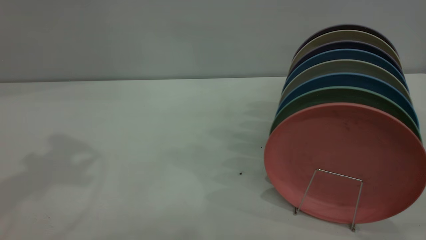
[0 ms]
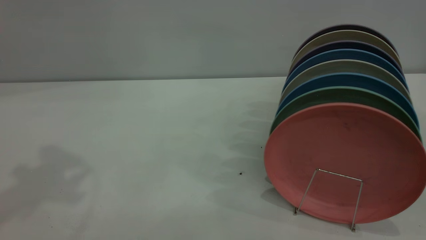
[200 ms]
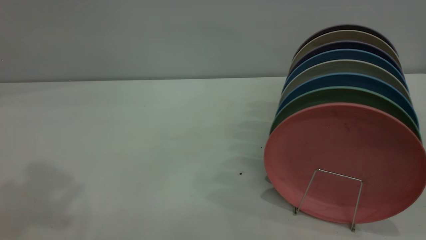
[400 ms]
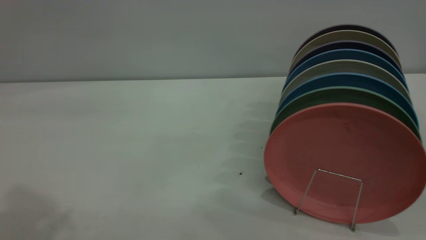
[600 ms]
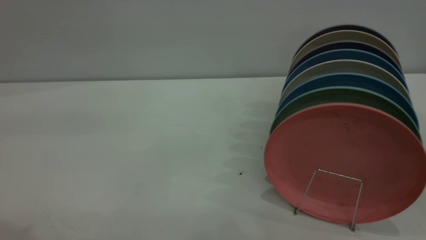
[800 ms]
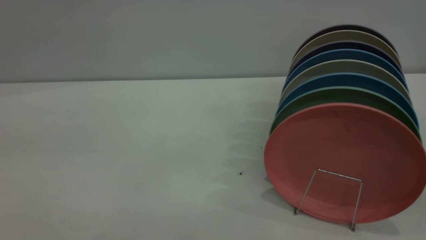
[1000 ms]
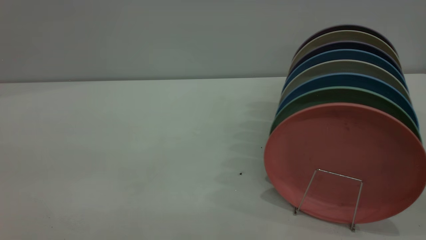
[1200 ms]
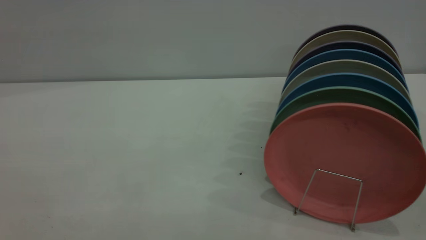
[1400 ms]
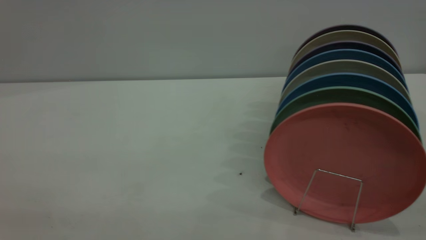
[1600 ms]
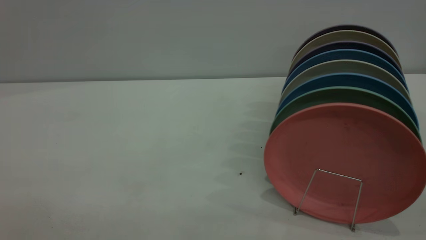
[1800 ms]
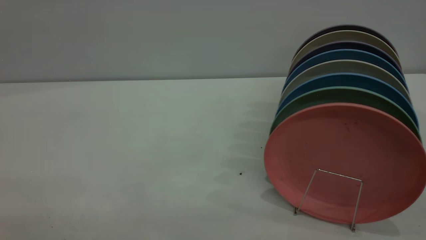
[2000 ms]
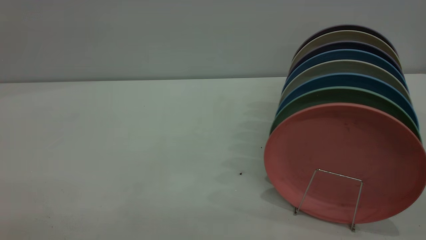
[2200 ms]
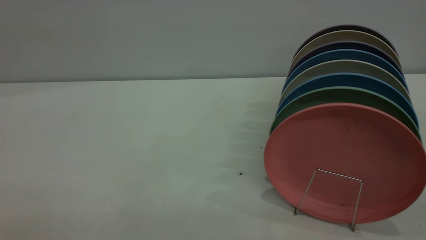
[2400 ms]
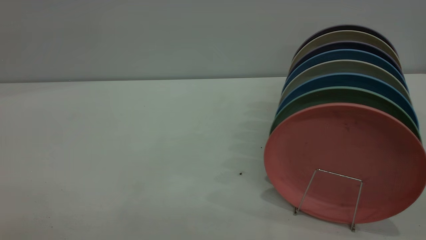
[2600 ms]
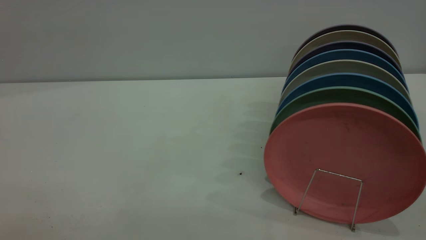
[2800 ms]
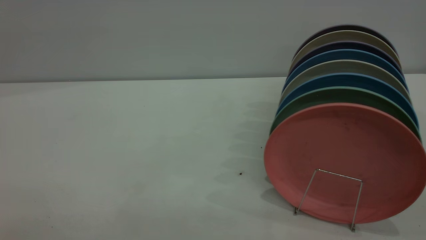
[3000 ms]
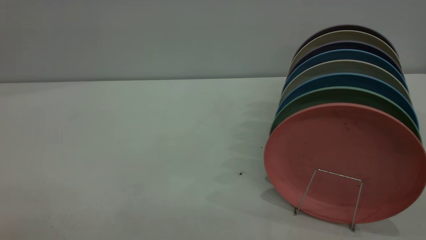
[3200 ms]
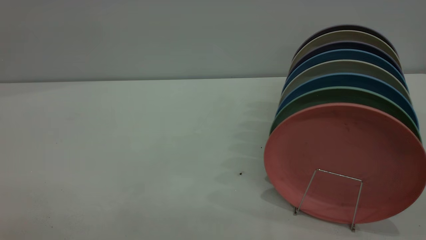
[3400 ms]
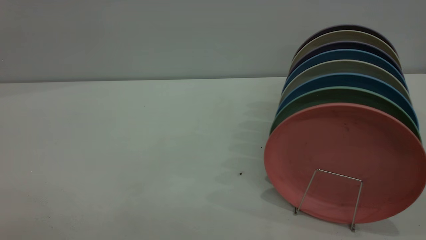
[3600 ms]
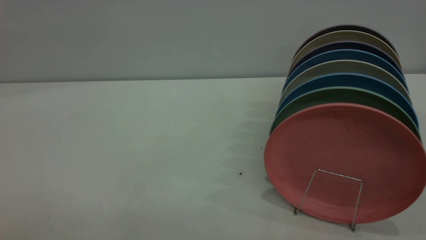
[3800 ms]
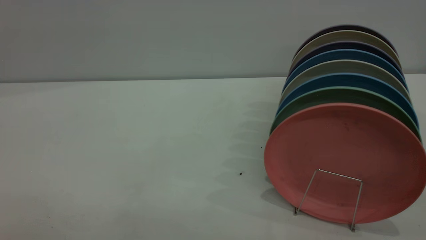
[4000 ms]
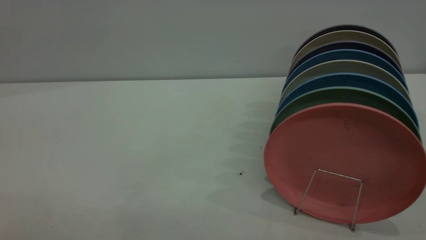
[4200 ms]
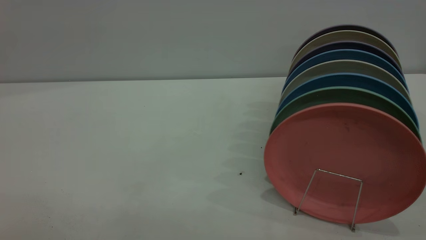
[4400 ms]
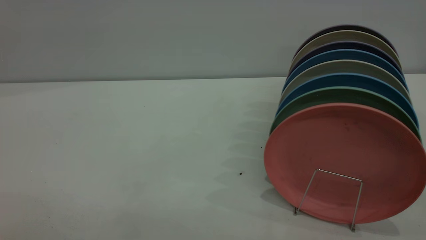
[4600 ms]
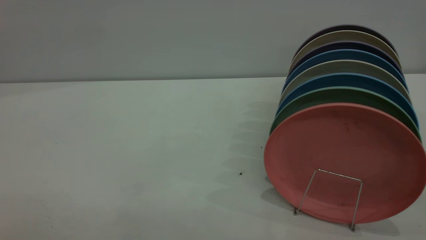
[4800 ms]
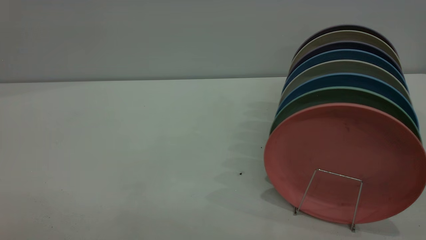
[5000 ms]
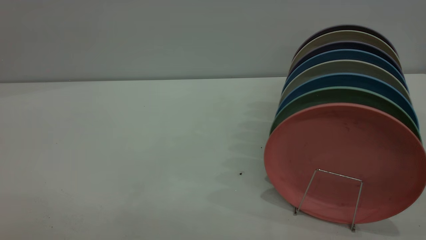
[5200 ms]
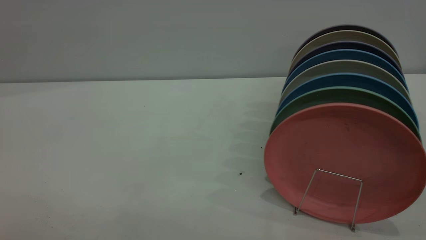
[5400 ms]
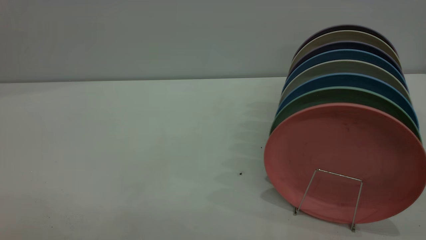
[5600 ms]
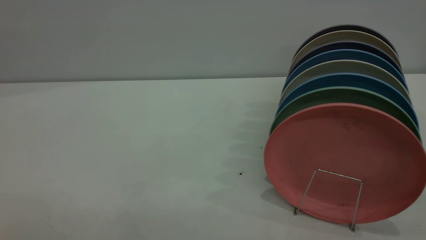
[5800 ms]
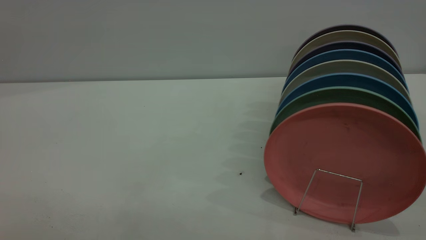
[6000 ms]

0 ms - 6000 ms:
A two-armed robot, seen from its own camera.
Task of the whole recording: put the plate on the plate rack.
4400 ms - 6000 ms: The two grippers keep their place.
